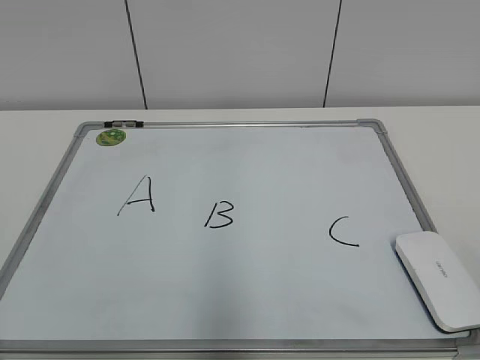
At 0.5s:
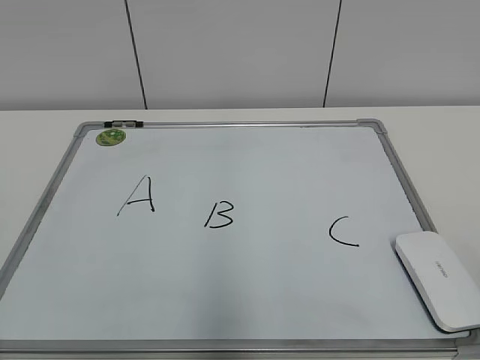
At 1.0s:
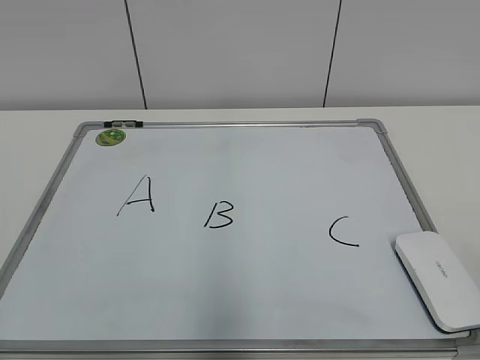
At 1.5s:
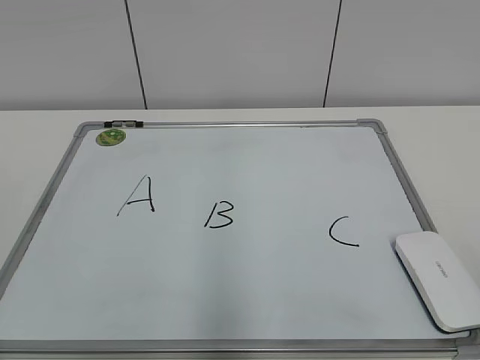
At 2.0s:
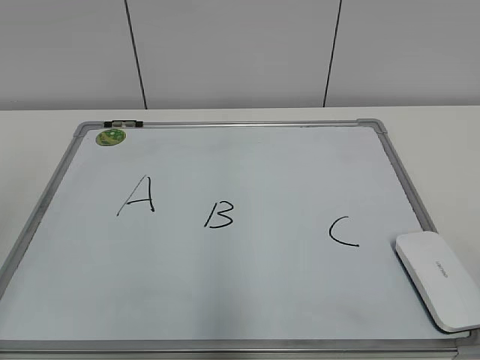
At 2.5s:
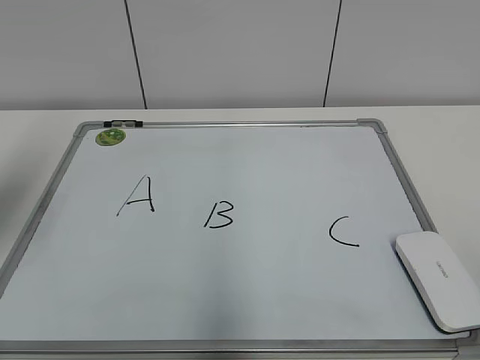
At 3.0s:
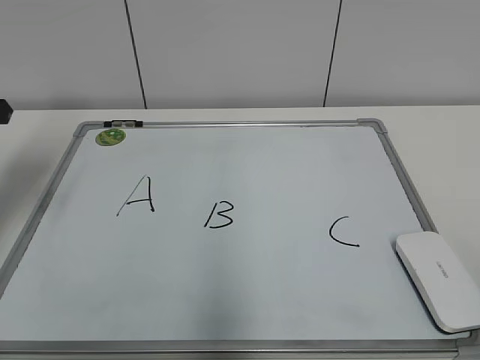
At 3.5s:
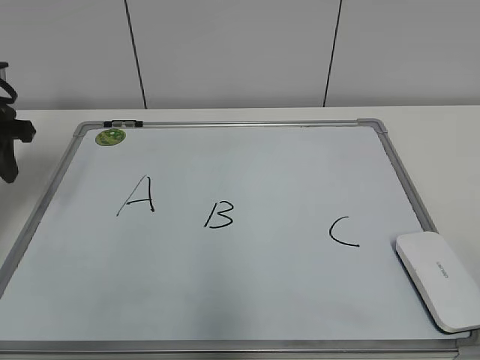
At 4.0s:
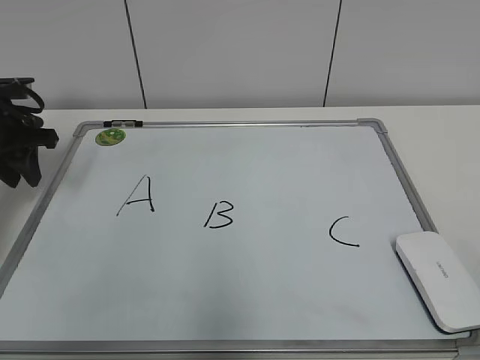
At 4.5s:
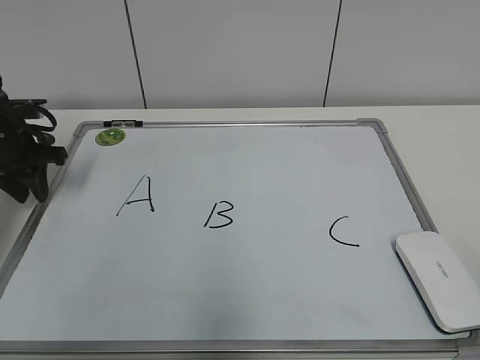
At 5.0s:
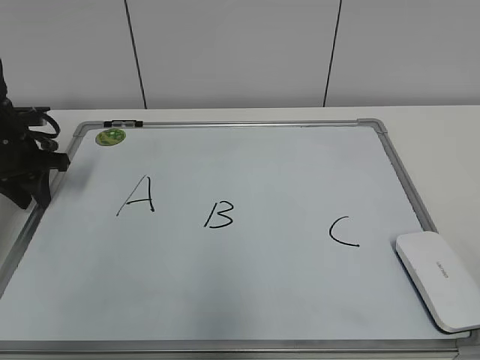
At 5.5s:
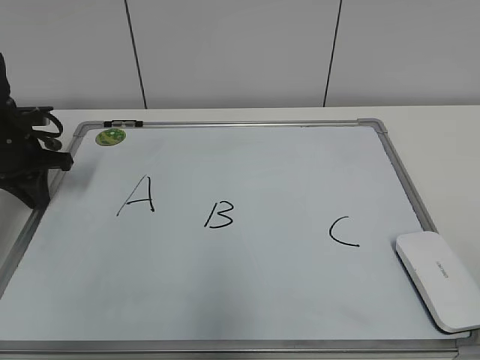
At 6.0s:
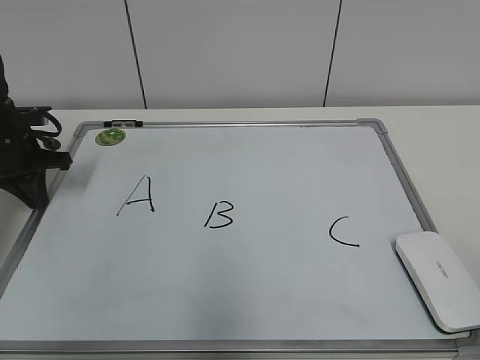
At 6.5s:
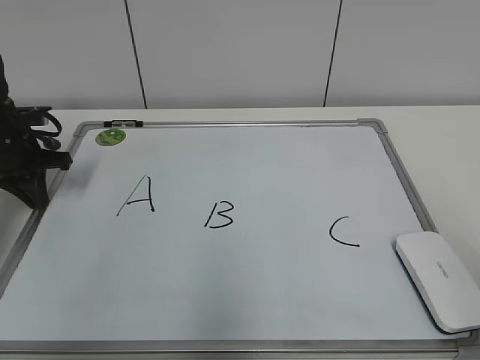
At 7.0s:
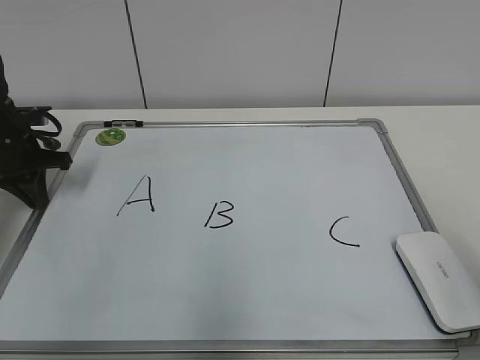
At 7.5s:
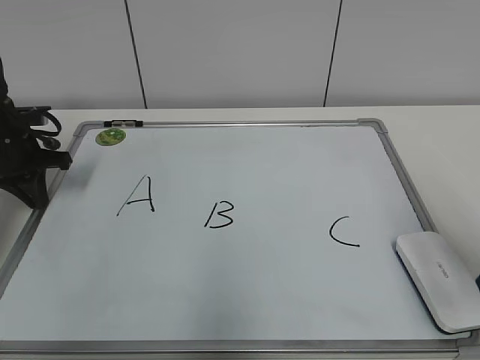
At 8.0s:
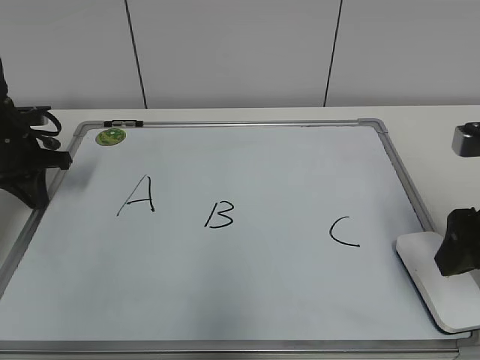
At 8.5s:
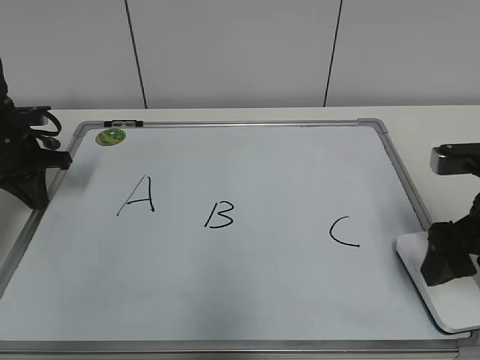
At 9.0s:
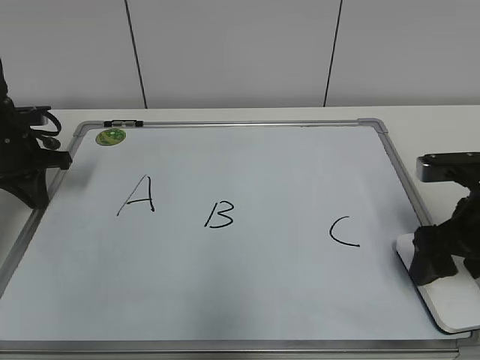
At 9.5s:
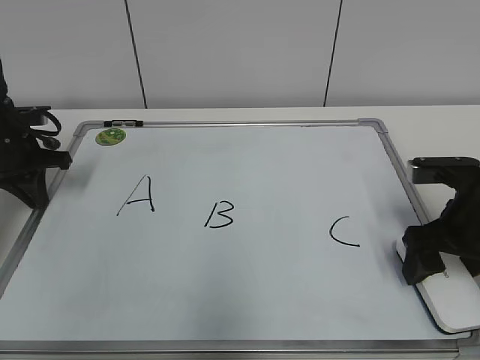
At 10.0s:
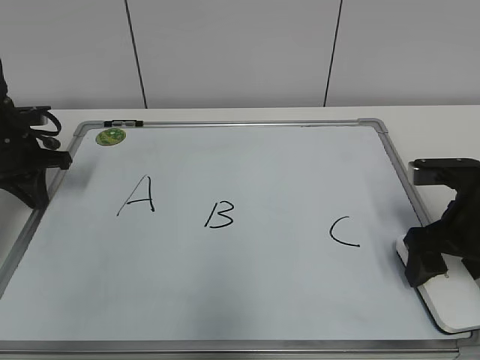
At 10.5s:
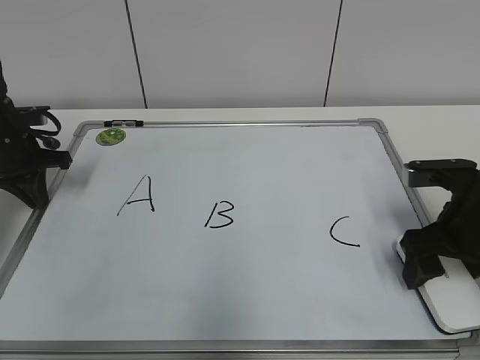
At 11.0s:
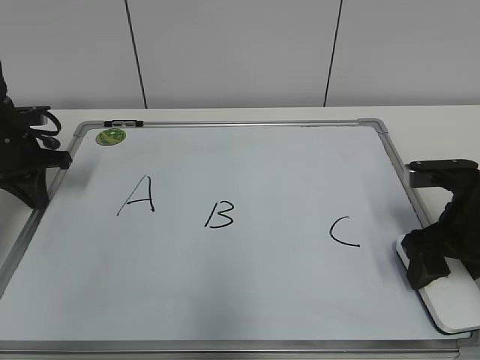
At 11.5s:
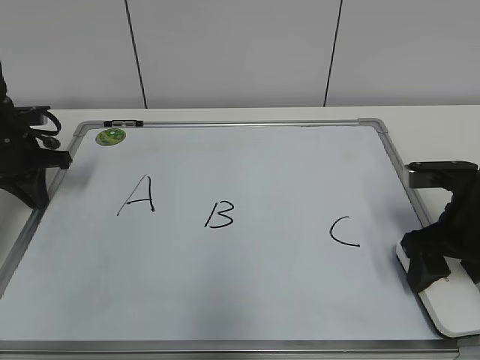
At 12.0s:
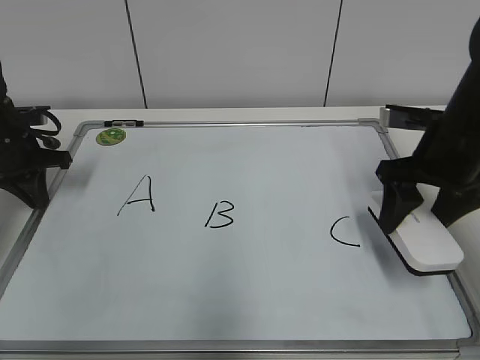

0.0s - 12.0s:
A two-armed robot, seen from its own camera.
Task of the whole recording: pick up the eraser on the blackboard and erase the letter "B".
Step, 0.0s - 5.5s: Hold the drawing board steady with your left hand.
Step, 6.0s - 11.0s: Grab the eraser with your right hand.
2.0s - 4.0s: The left gripper shifts about 30 cm forward and downward.
4.0s - 6.0s: The left gripper closes.
6.0s - 8.0s: The right gripper heads forward, covering about 25 cm, and opens.
8.0s - 10.0s: The right gripper is displaced downward and forward by some 10 cm.
10.0s - 12.0s: The right gripper is displaced upward by approximately 5 cm, and closes.

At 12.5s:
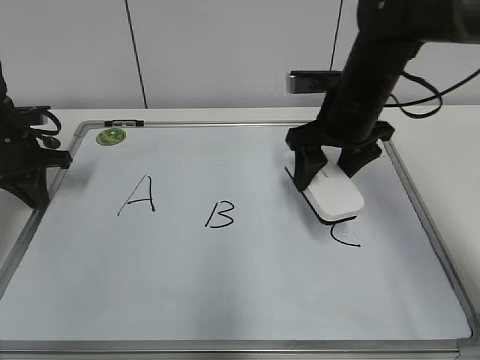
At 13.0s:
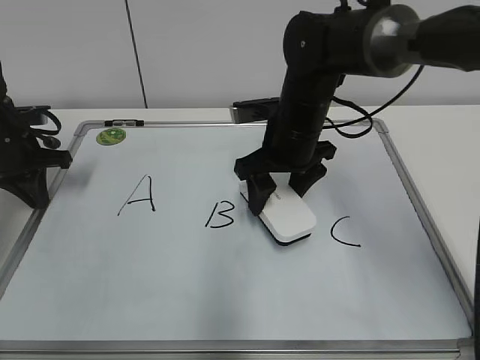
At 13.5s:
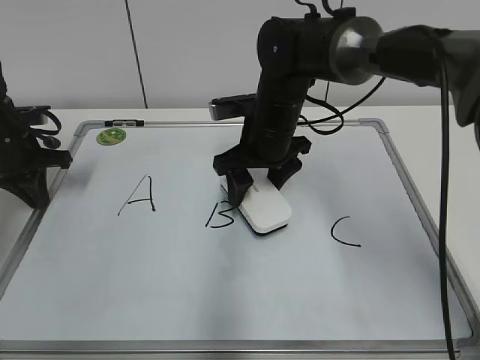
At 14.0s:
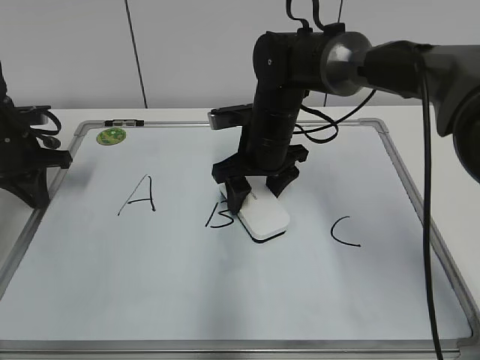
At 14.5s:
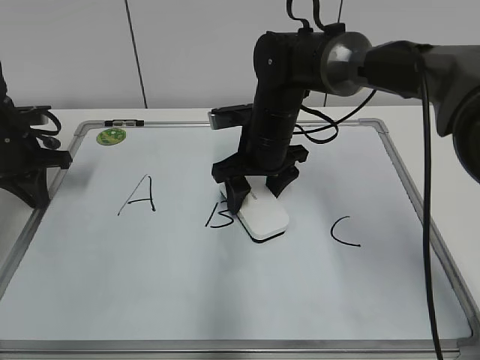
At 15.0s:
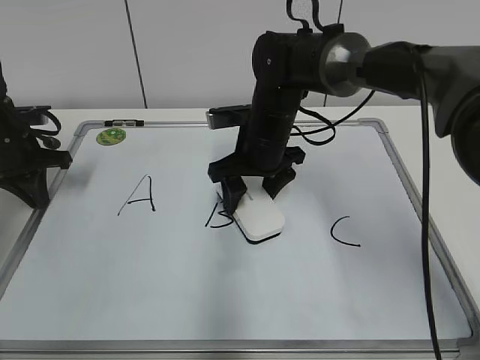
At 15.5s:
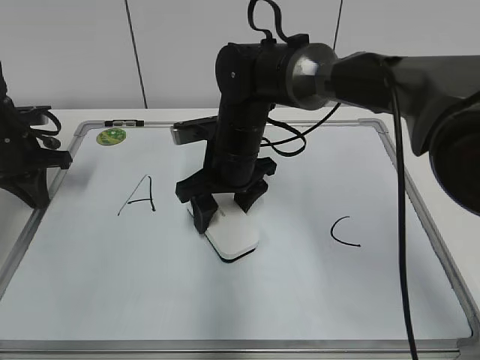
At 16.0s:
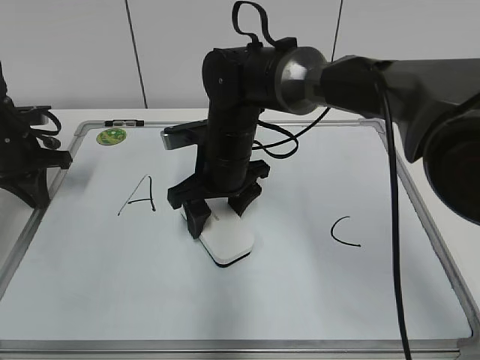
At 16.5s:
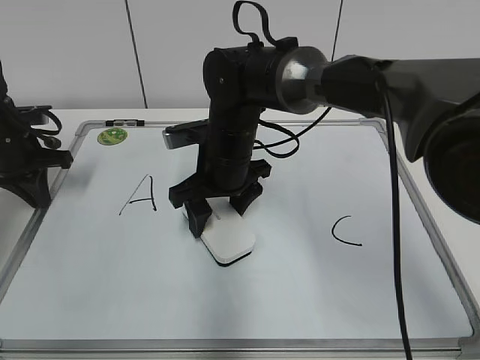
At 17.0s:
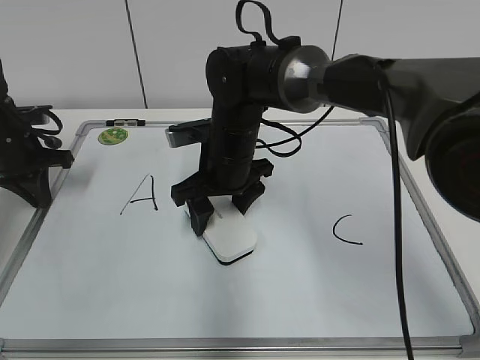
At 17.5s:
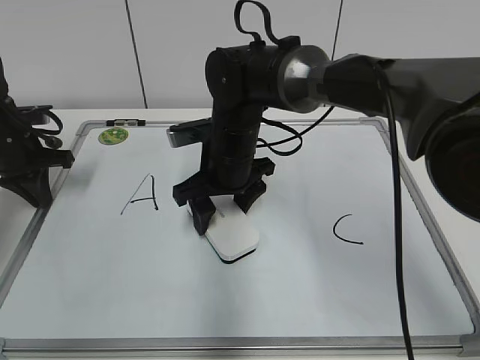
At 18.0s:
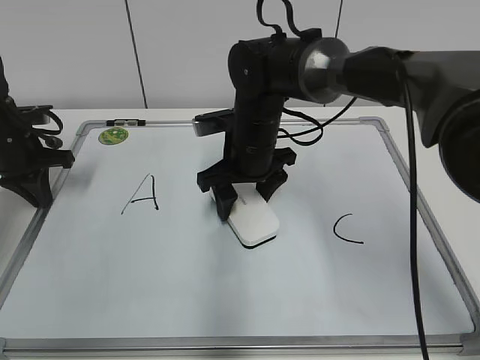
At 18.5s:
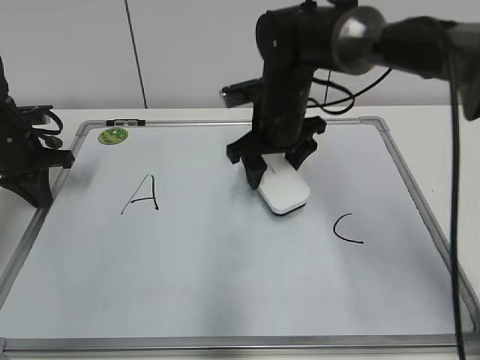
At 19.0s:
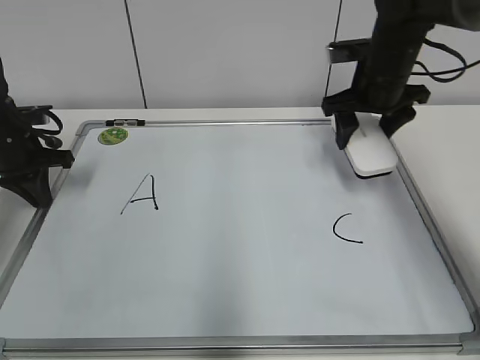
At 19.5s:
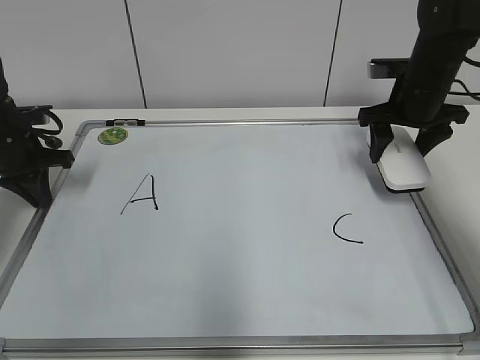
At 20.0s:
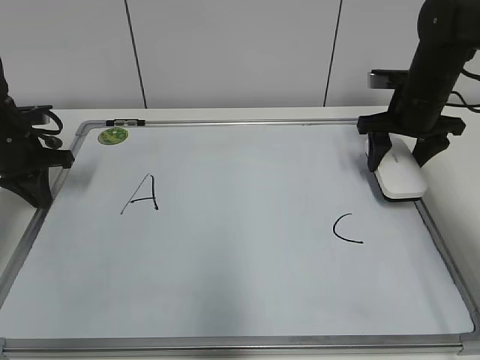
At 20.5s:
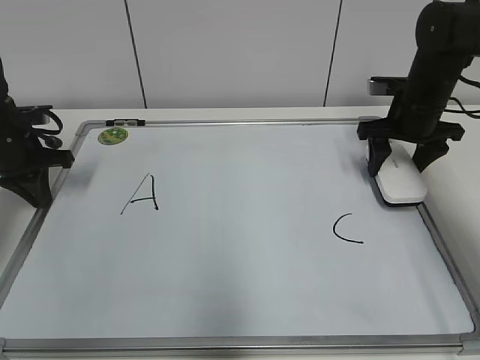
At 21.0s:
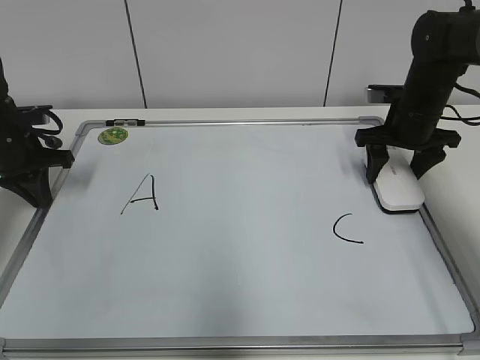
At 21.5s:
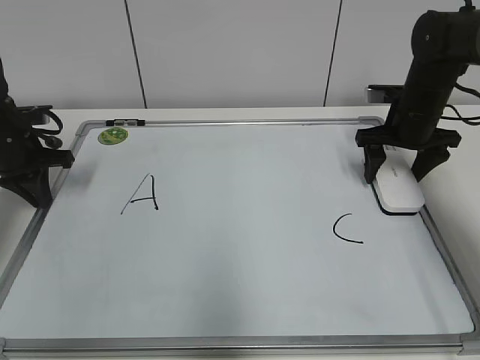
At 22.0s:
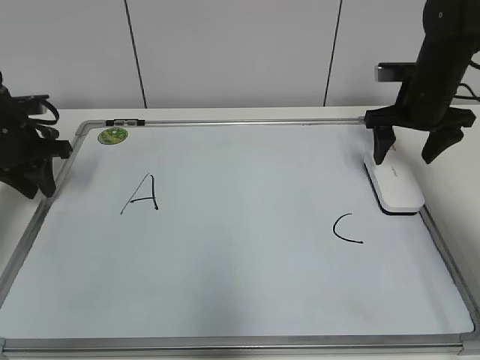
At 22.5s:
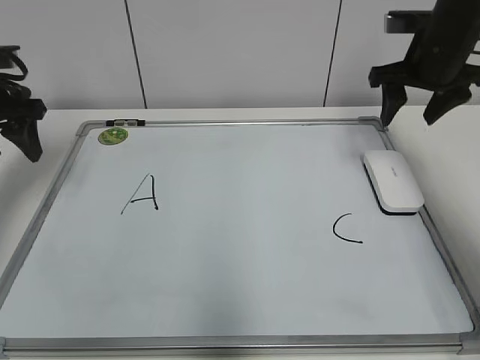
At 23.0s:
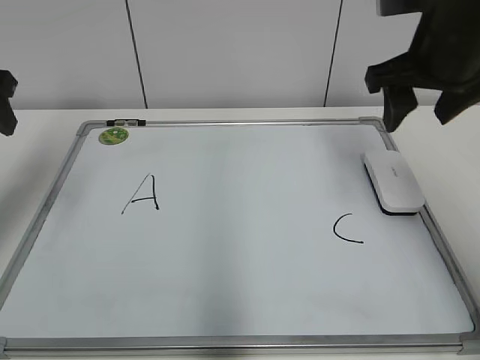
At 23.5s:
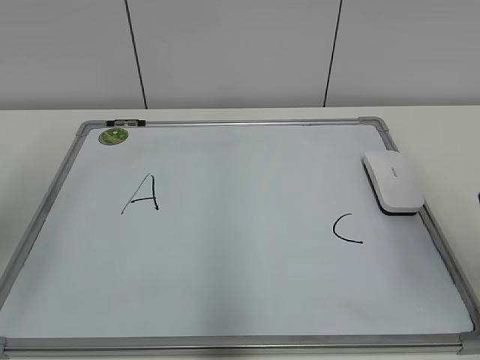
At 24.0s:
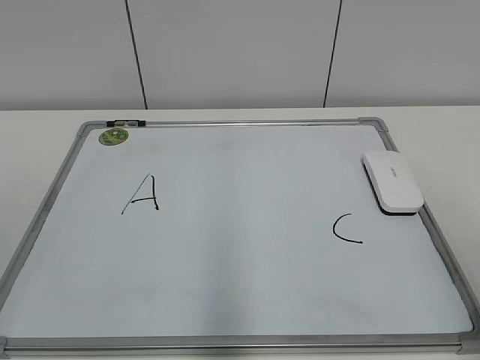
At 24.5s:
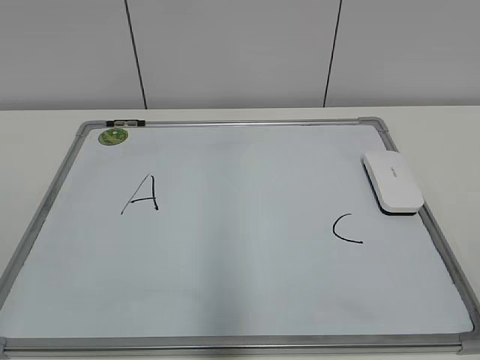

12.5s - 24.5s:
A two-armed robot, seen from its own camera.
Task of the whole recording: pick up the eraser on the blackboard and erase the letter "B".
Step, 12.5s - 18.0s: Erase the letter B with your right hand.
12.5s - 14.5s: The right gripper is displaced to the left and downward by approximately 10 cm.
14.5s - 16.5s: The right gripper shifts by about 5 cm.
16.5s - 18.5s: The right gripper goes approximately 5 cm to the right.
18.5s - 20.5s: The right gripper shifts roughly 20 cm to the right.
20.5s - 22.5s: The two grippers go approximately 10 cm upward. The left gripper opens up, while the right gripper opens, then closes once more.
22.5s - 24.5s: Both grippers move backward, about 40 cm.

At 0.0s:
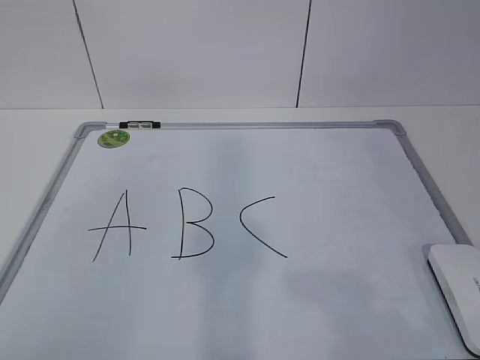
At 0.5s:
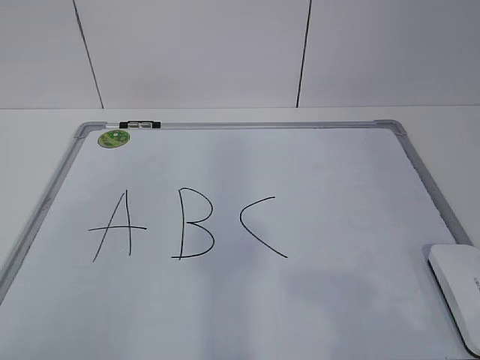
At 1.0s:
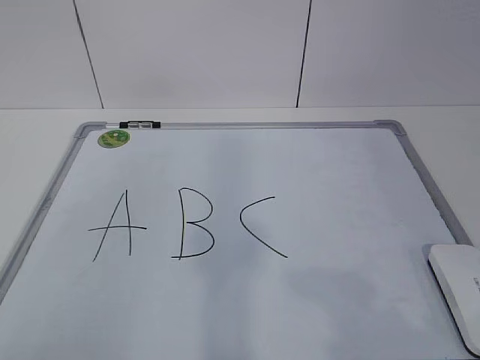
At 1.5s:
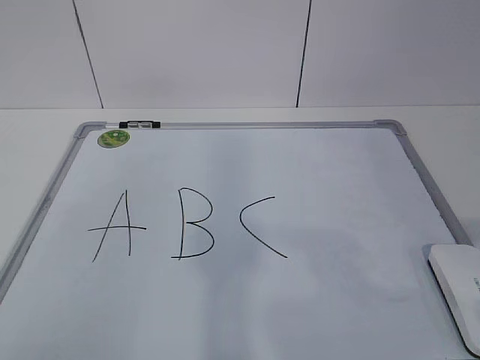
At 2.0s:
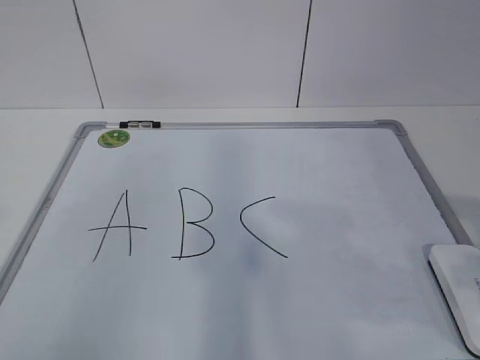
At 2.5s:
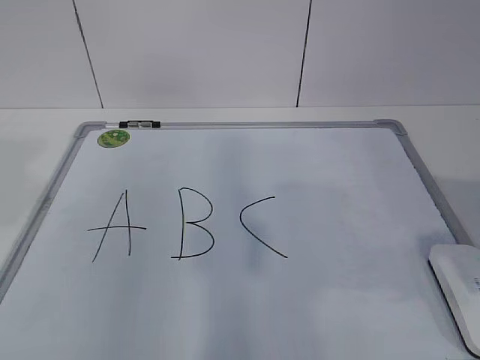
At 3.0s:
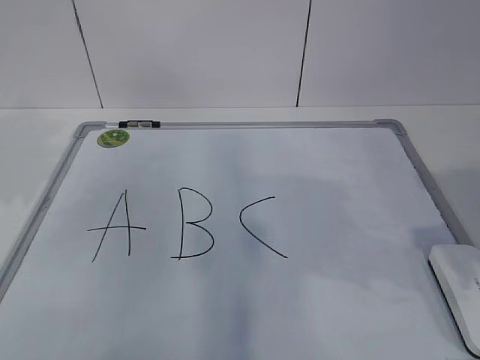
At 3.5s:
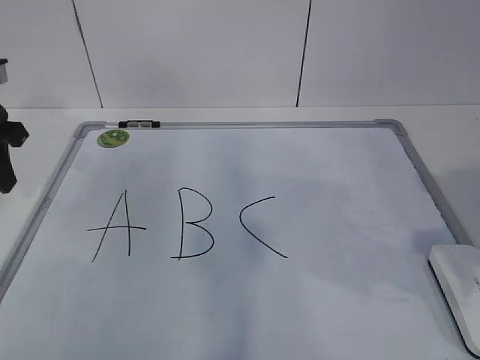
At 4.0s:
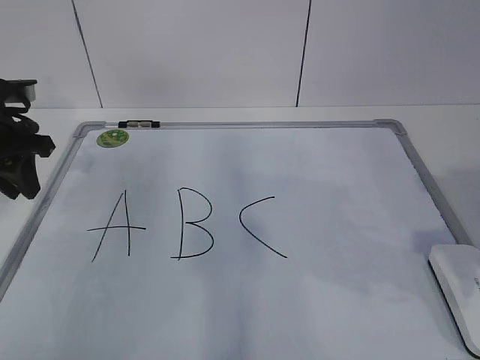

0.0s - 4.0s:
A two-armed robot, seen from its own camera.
Task of the whole recording: pick up the eraser on the blackboard and erase the letter "B".
2.0s - 4.0s: The left gripper moves forward, roughly 35 cm.
